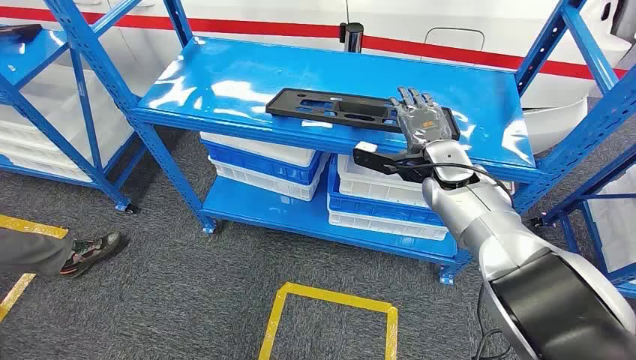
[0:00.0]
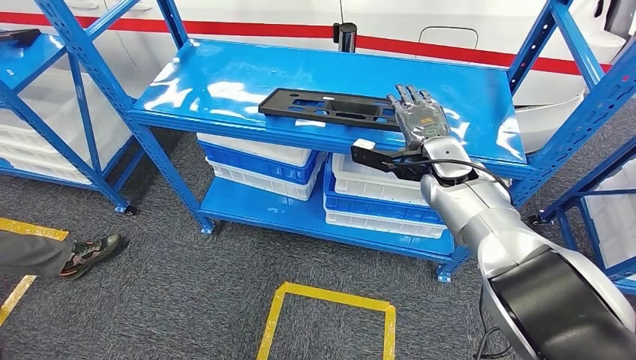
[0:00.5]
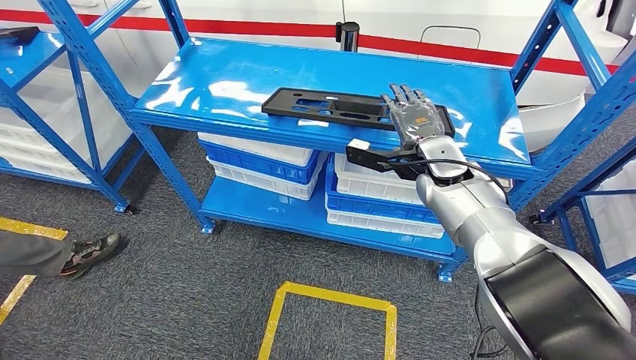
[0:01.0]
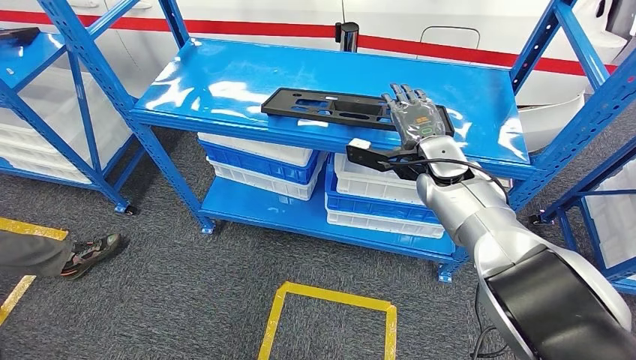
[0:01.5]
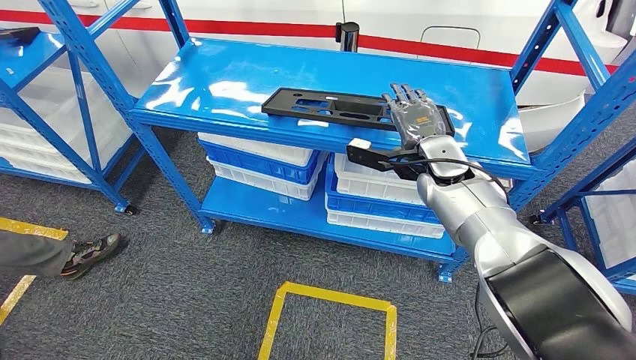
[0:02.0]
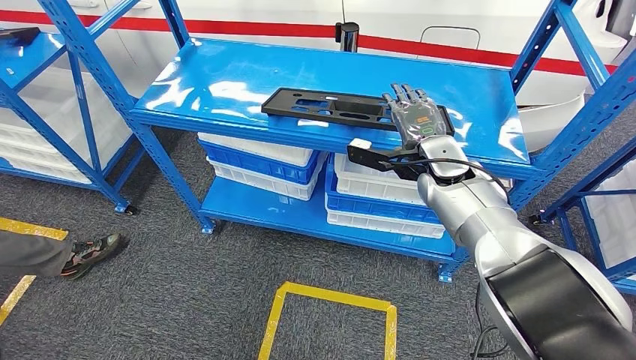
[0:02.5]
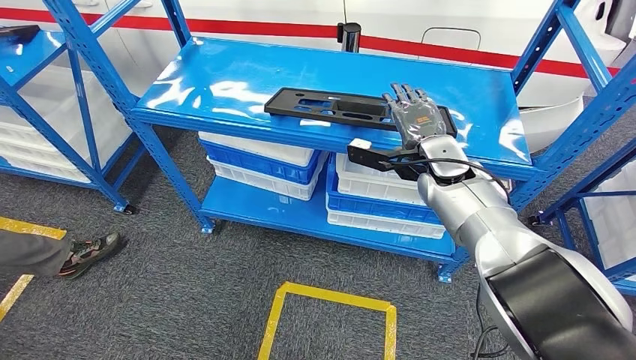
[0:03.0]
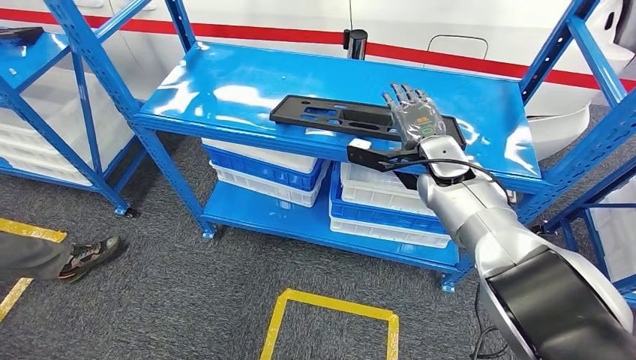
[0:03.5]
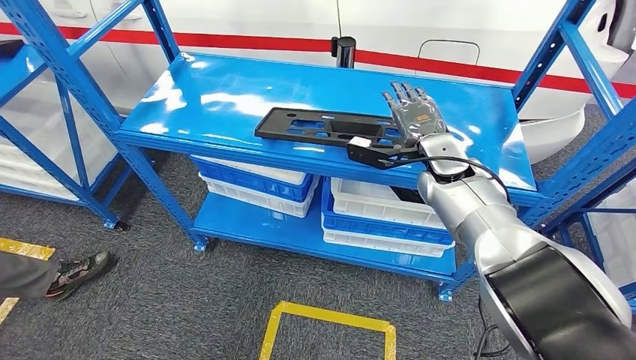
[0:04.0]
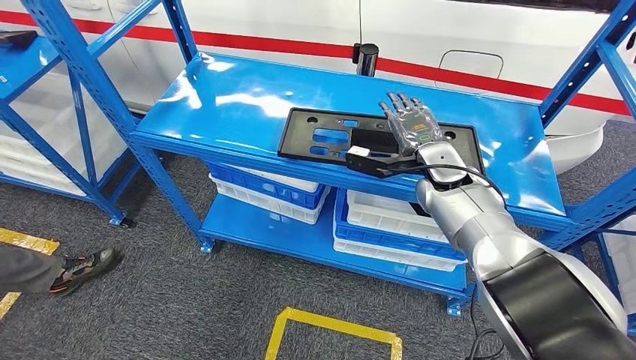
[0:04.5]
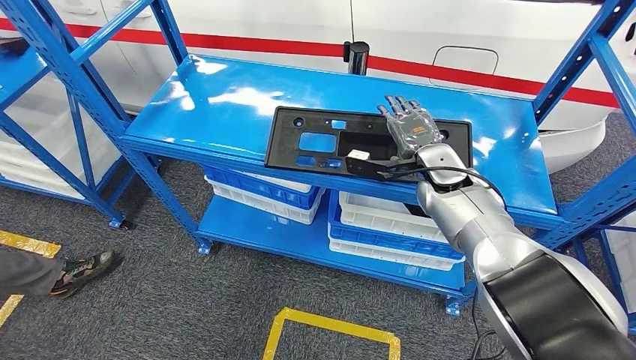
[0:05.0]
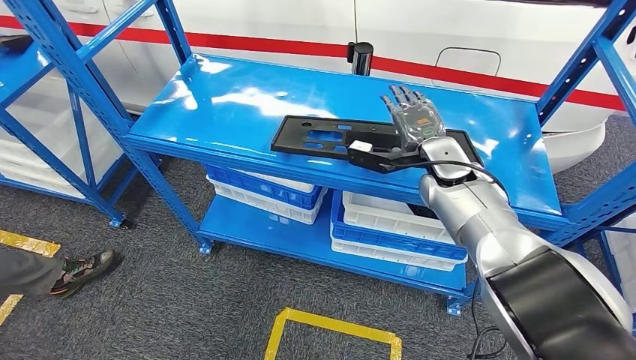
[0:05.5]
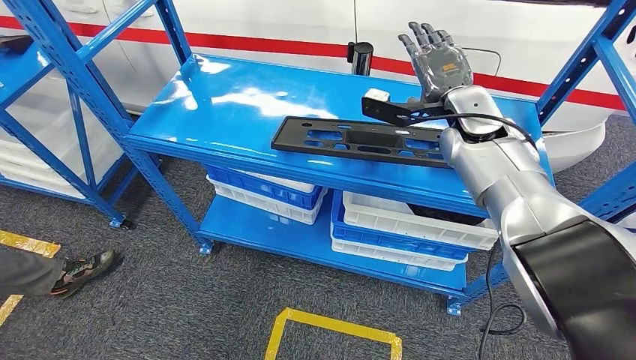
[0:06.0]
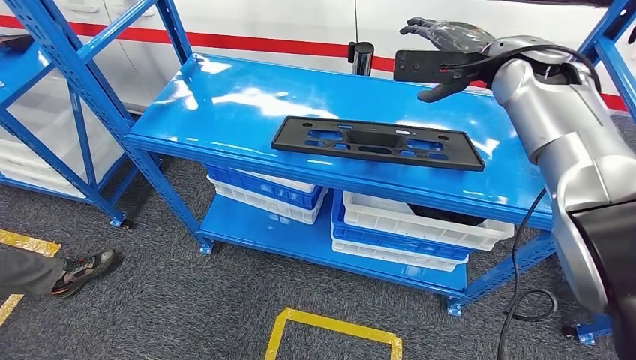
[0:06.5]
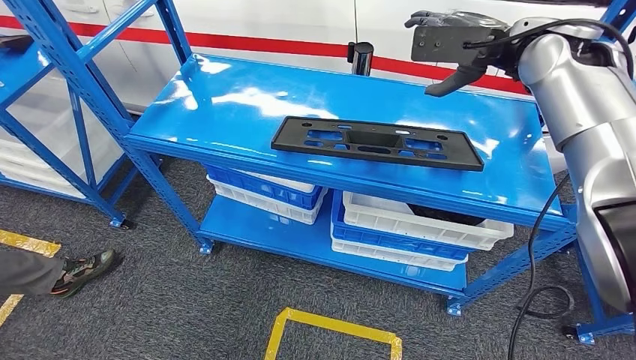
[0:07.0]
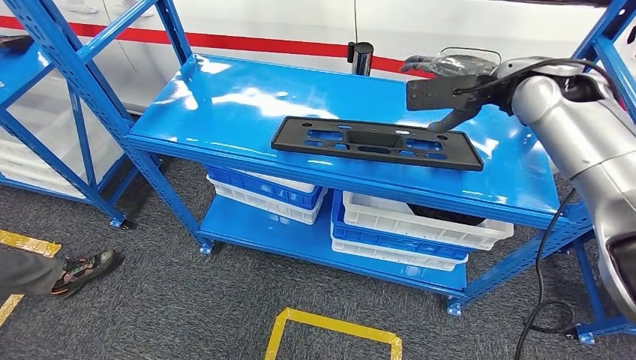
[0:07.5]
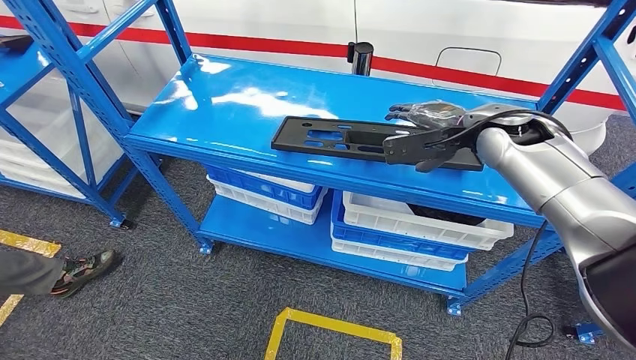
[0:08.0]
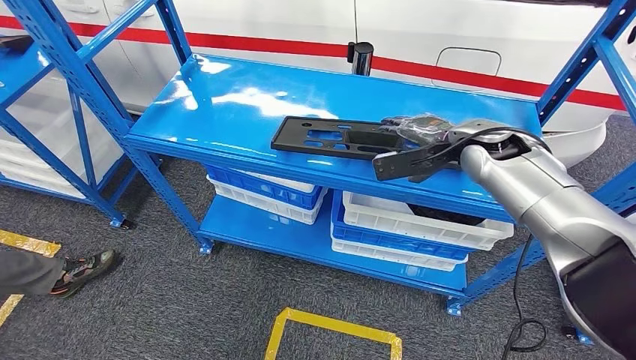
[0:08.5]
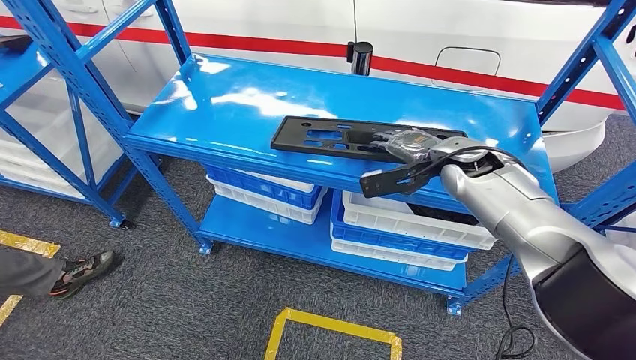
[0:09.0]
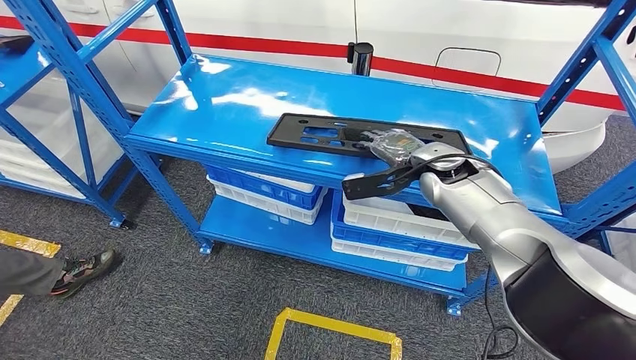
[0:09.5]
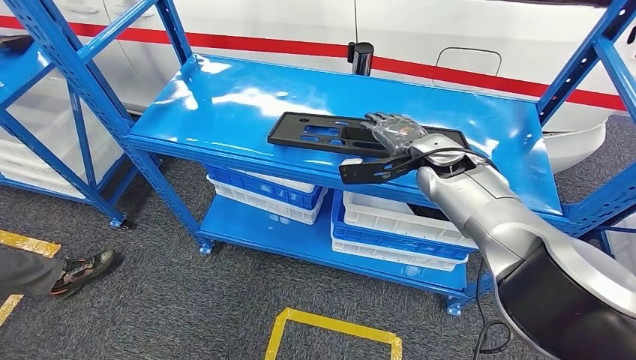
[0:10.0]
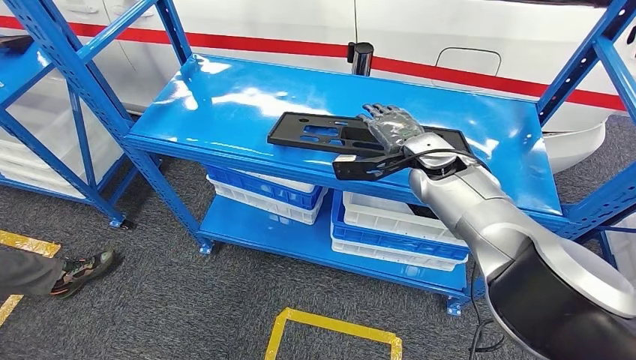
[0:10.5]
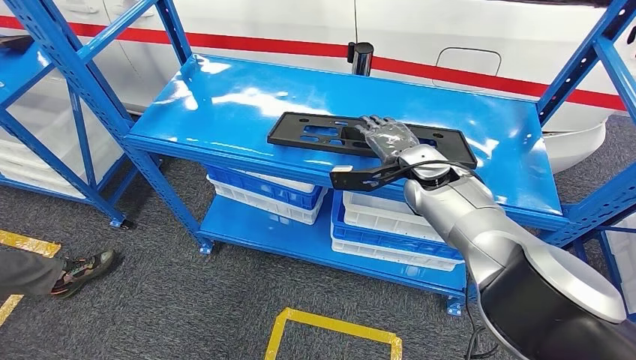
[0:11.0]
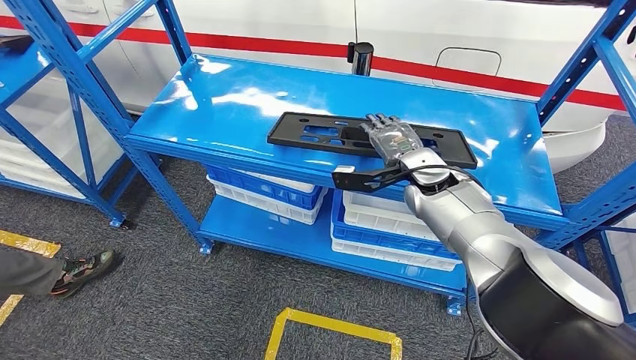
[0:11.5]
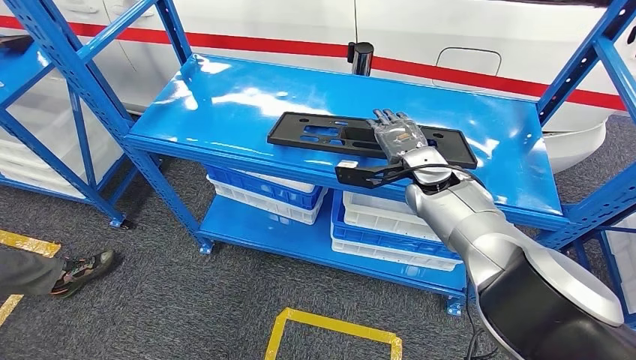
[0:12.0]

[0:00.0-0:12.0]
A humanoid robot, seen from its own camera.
0:06.0 to 0:08.0: The right hand travels upward and back again, roughly 10 cm each way.
0:08.0 to 0:10.0: The right hand heads to the left and downward, covering roughly 10 cm.
0:10.0 to 0:12.0: The hands make only small movements.

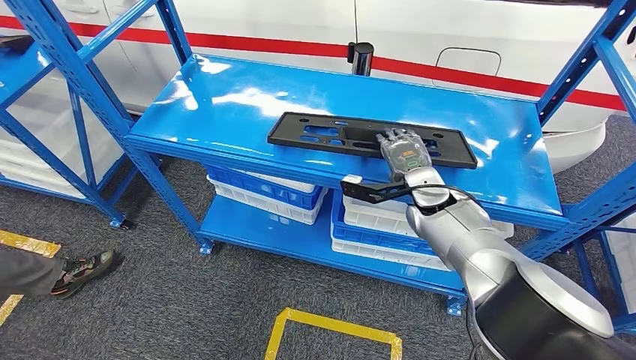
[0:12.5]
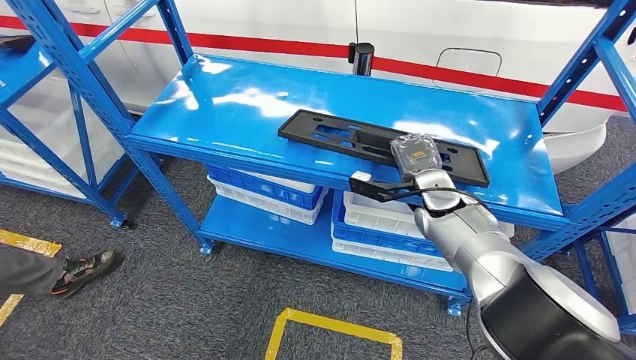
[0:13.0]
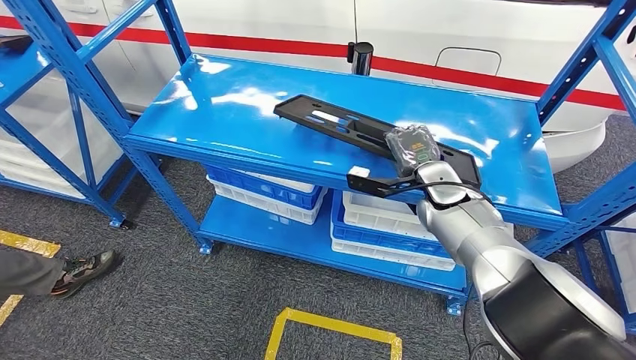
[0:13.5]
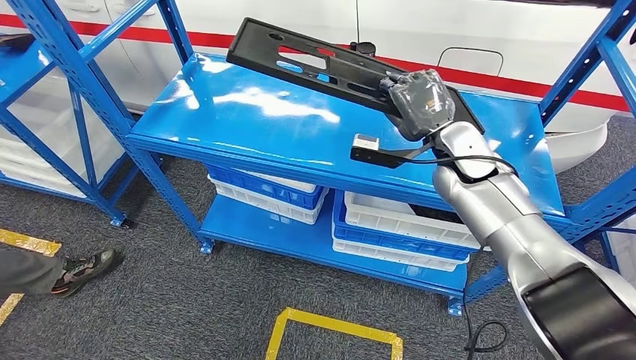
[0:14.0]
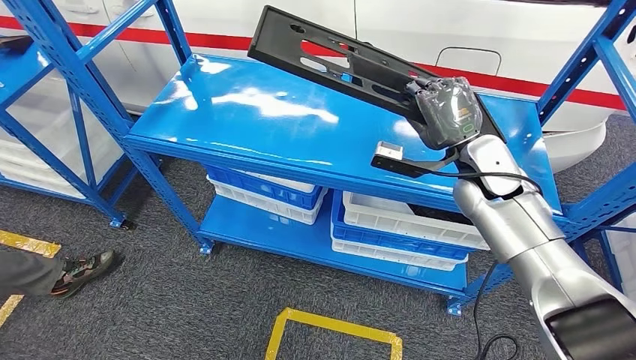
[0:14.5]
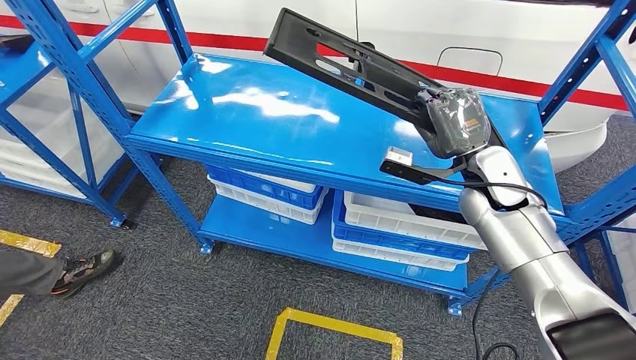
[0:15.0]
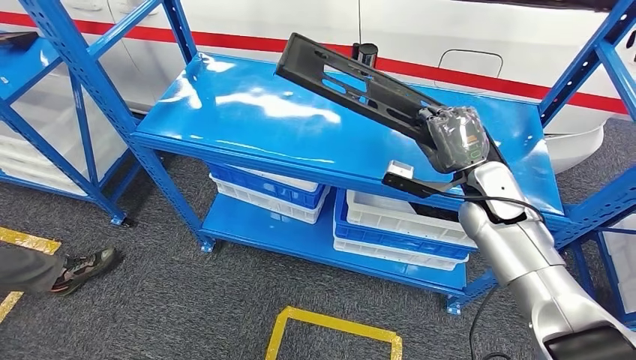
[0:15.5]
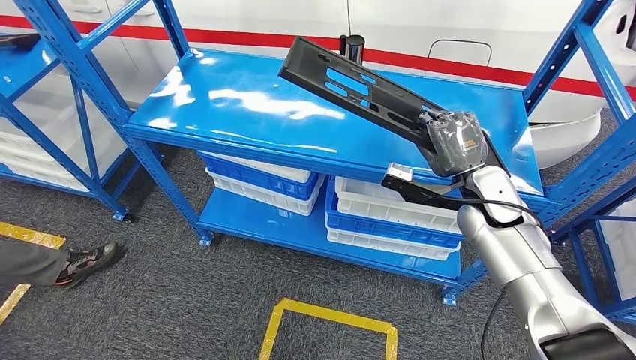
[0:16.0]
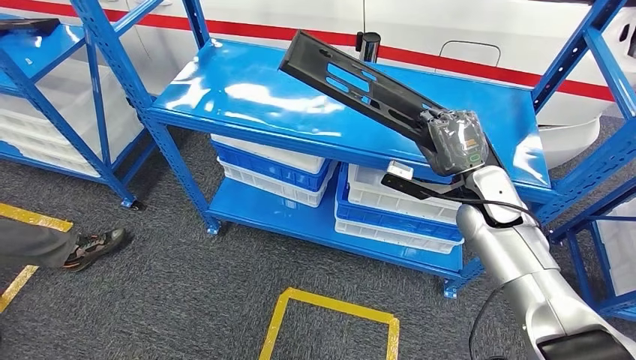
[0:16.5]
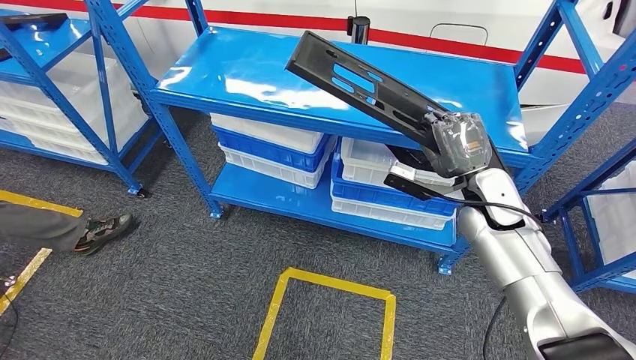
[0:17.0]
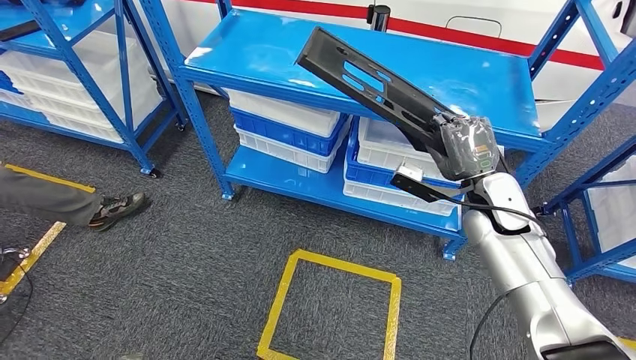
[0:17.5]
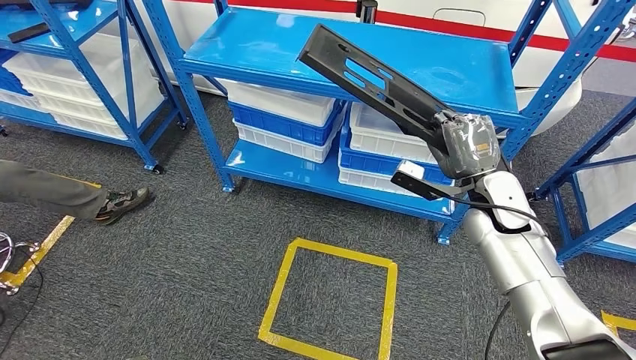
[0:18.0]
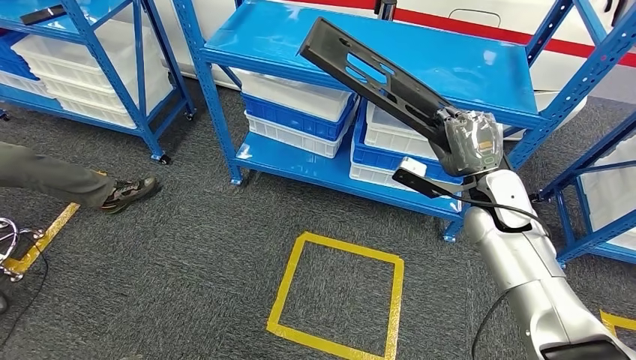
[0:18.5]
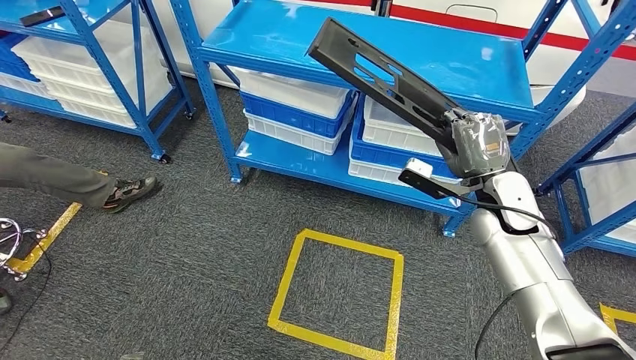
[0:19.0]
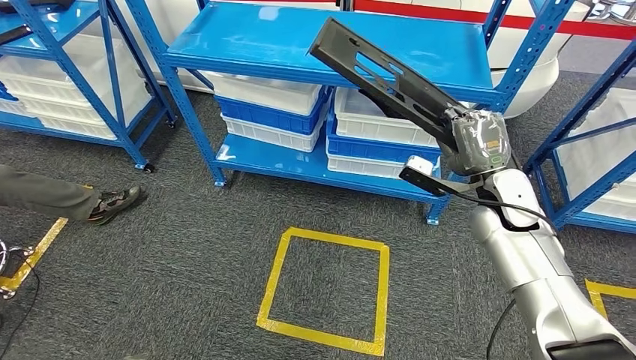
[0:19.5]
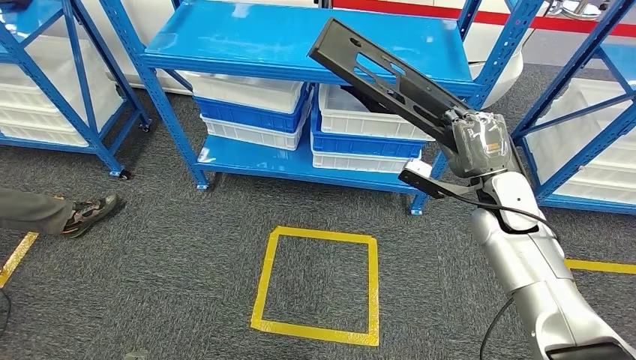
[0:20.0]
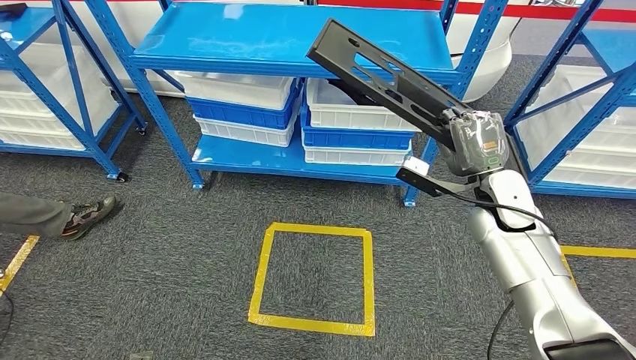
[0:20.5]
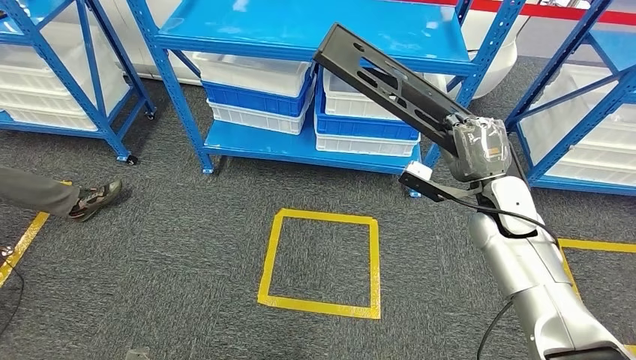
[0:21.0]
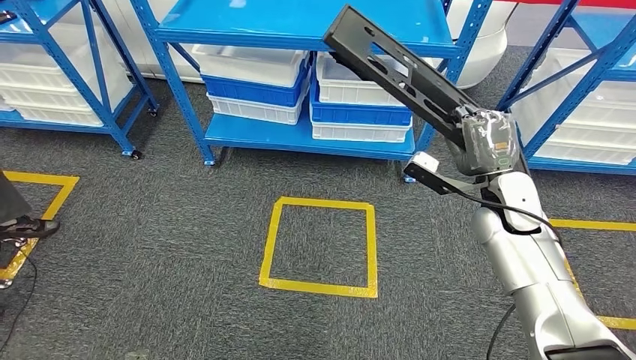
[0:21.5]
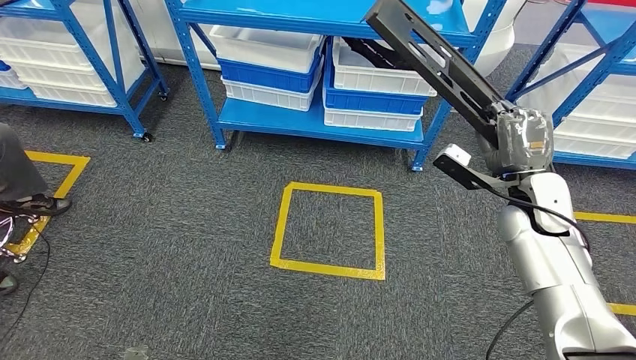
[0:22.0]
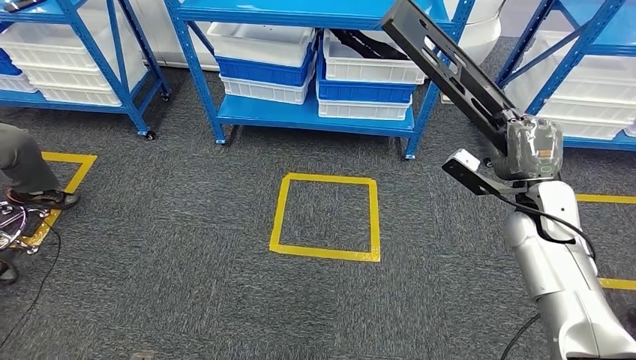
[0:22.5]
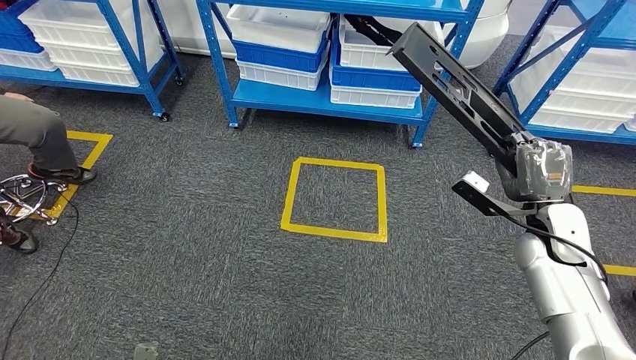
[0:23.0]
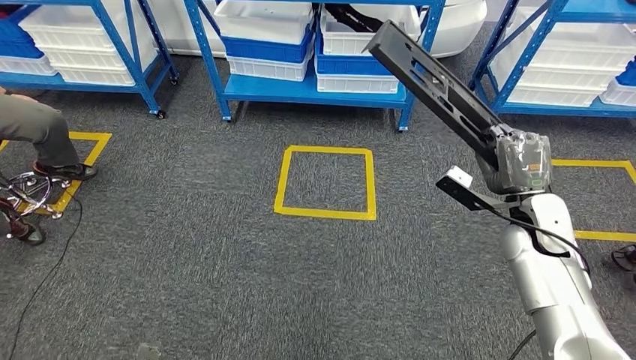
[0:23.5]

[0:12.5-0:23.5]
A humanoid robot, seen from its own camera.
Step, 0:12.5 to 0:16.0: Pick up the large material from the shelf.
0:12.5 to 0:14.5: The right hand is displaced upward and to the right by some 10 cm.
